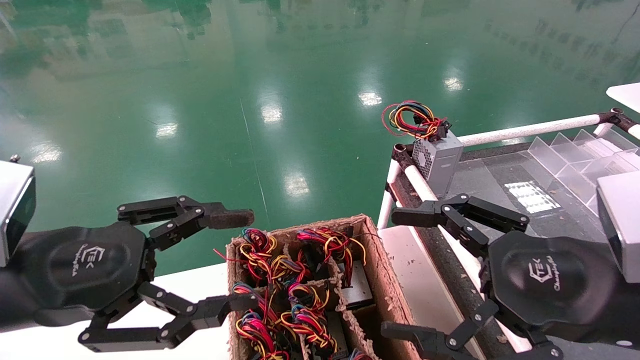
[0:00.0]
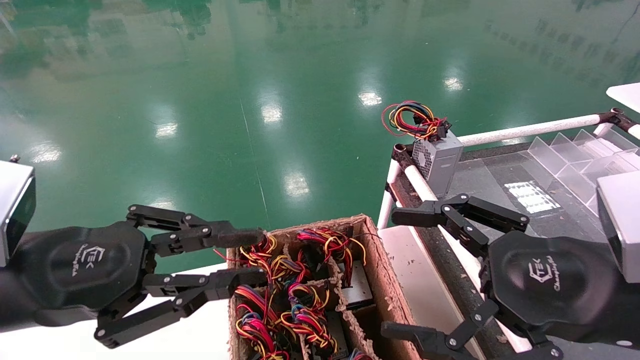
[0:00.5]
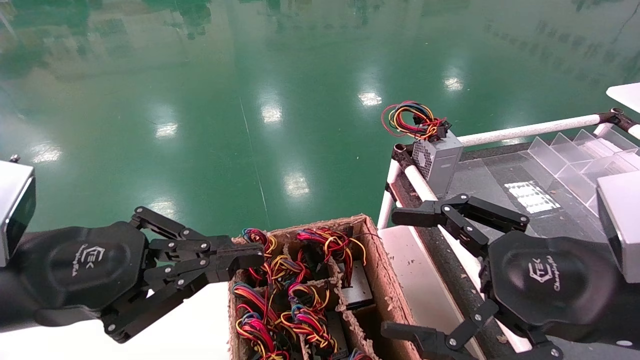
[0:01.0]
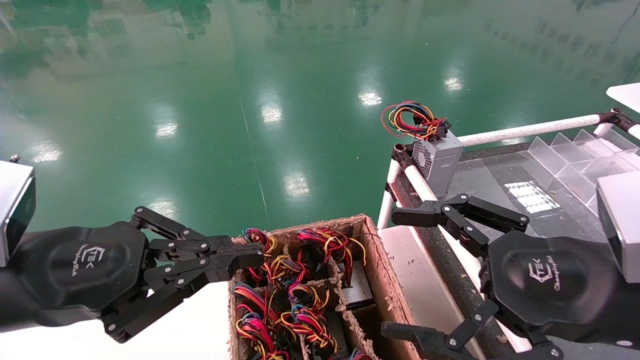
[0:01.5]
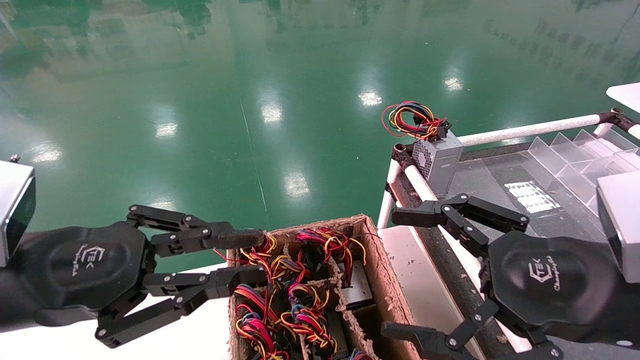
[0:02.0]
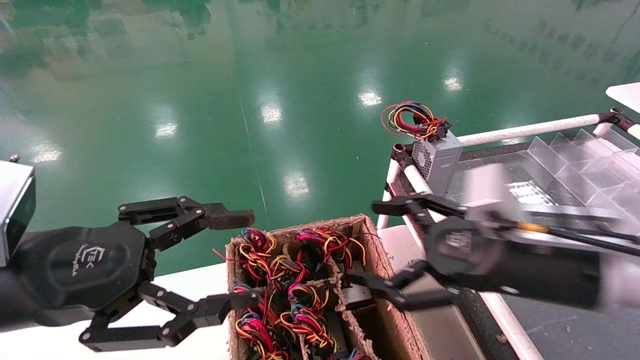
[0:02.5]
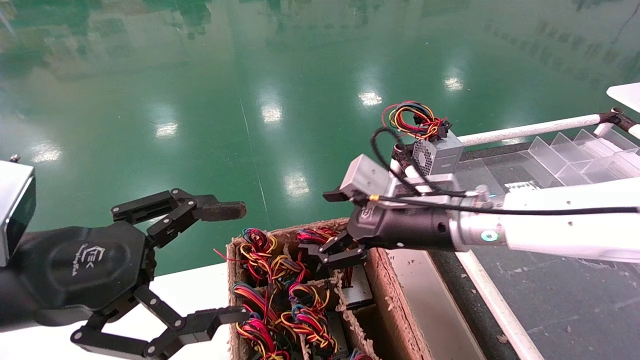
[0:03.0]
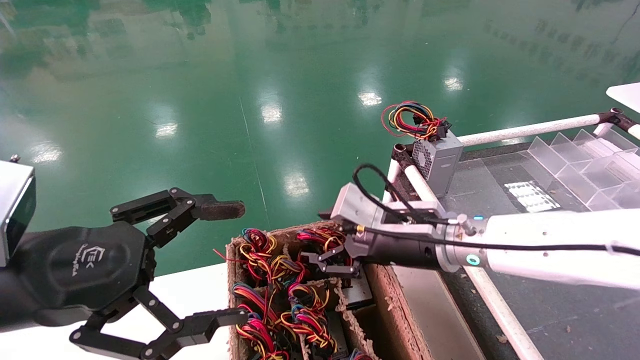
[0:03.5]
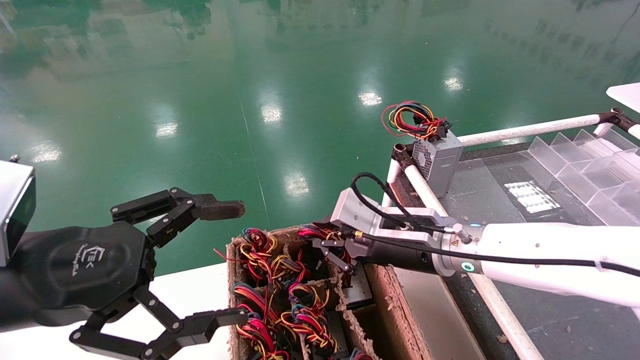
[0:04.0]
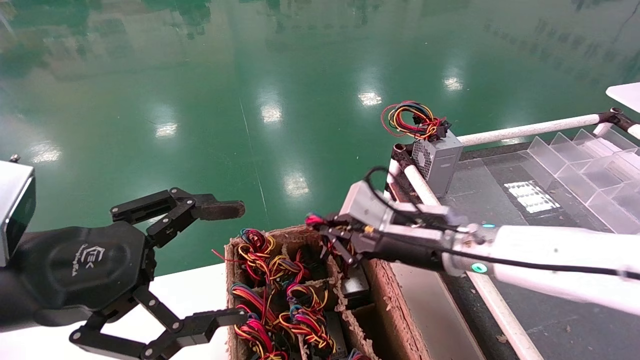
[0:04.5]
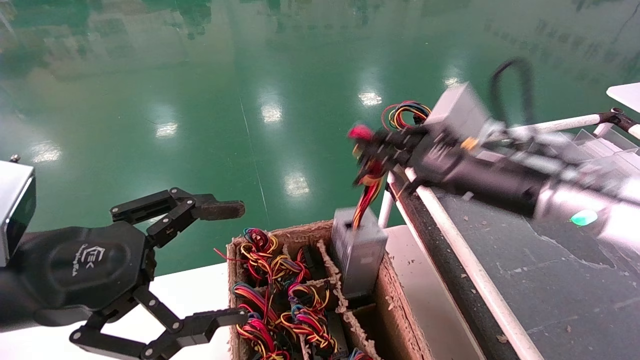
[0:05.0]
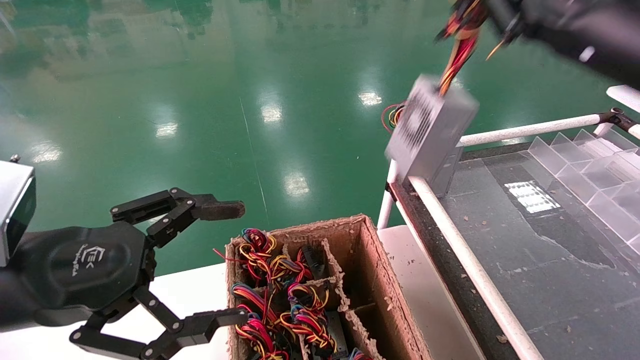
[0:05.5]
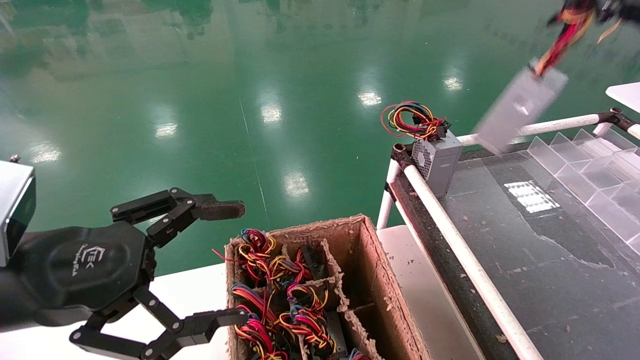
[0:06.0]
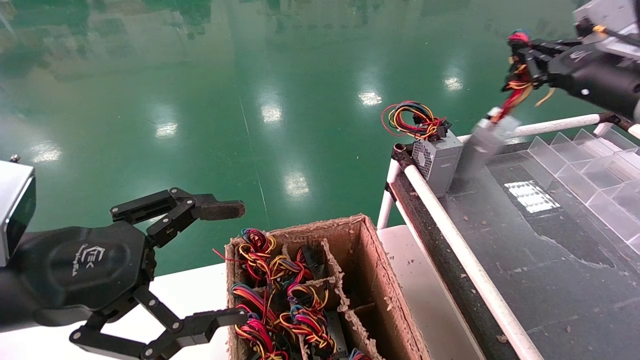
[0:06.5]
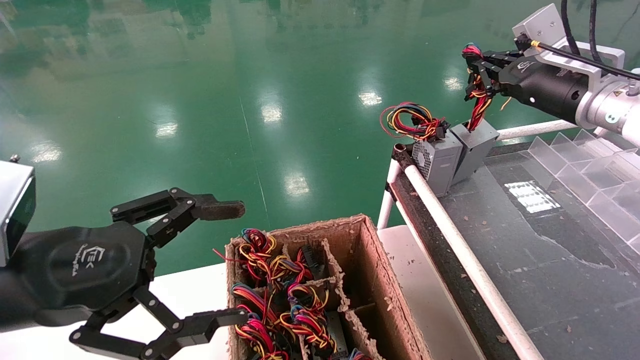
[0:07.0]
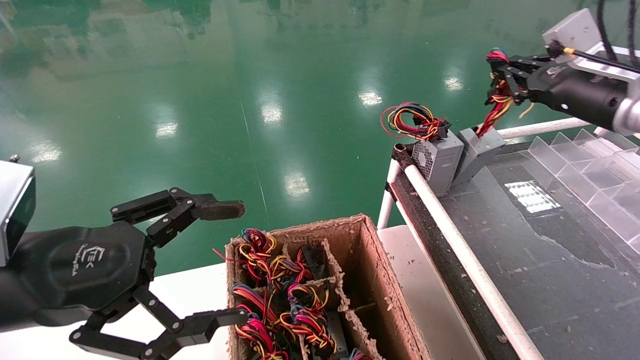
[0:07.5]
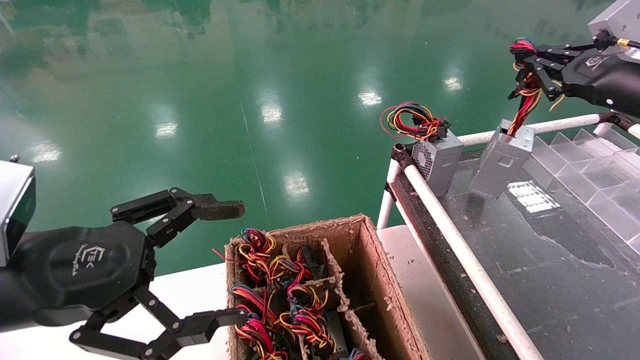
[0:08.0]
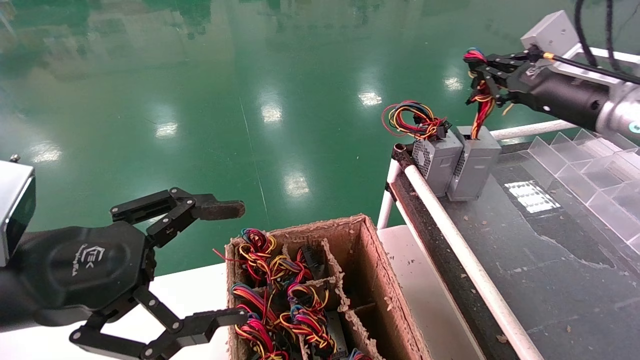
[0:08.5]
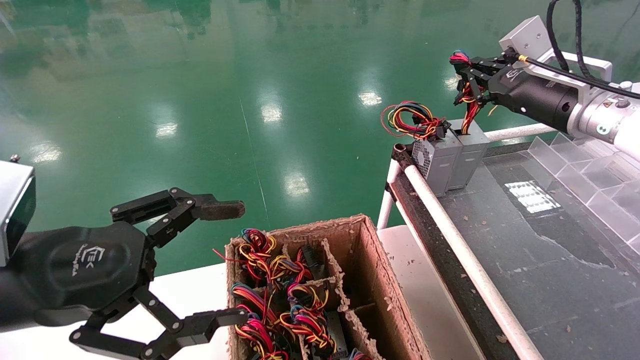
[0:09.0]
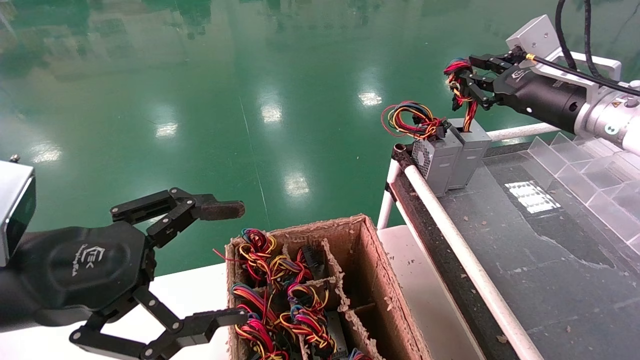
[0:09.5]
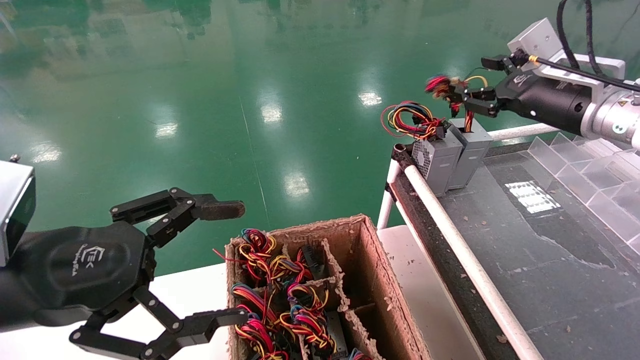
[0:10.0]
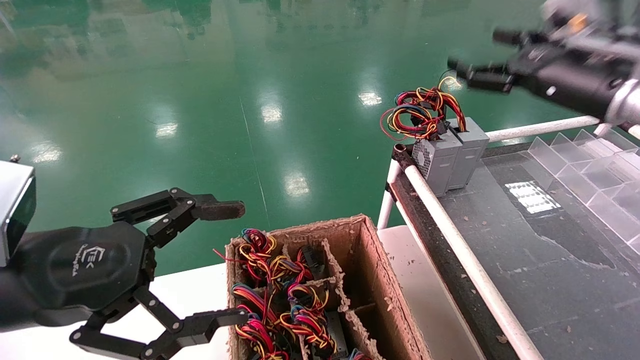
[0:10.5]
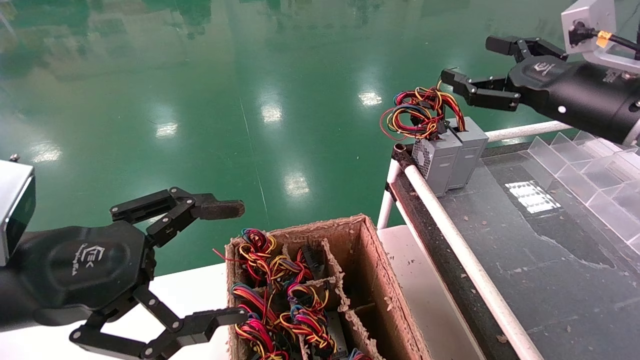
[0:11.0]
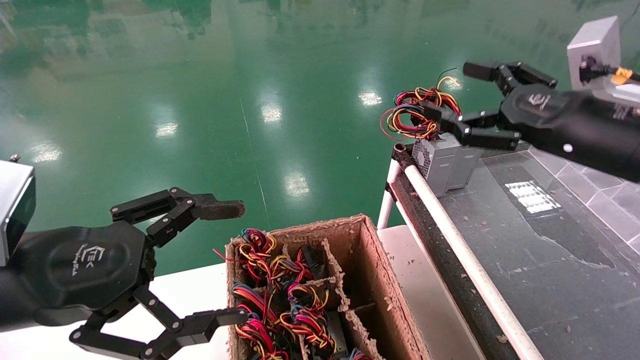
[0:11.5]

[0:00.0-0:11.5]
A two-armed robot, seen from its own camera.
Step, 0:01.5 to 0:04.5: Grab and lift the power supply from the large box.
Step, 0:05.0 to 0:09.0: Place the power supply on the operating table.
0:00.0 to 0:02.0: The left gripper closes its fingers.
0:02.0 to 0:04.0: The left gripper opens; the right gripper is displaced forward and to the left by approximately 20 cm, and closes up.
0:04.0 to 0:06.0: The right gripper heads to the right and upward, covering approximately 35 cm.
0:06.0 to 0:07.5: The right gripper is displaced forward and downward by some 10 cm.
0:07.5 to 0:09.5: The grippers stay close to where they were, moving slightly.
0:09.5 to 0:11.5: The right gripper moves backward, approximately 10 cm, and opens.

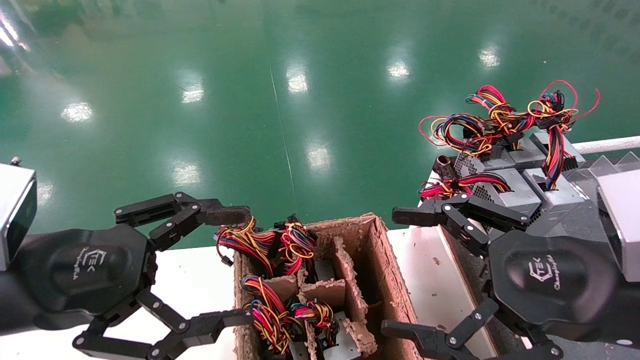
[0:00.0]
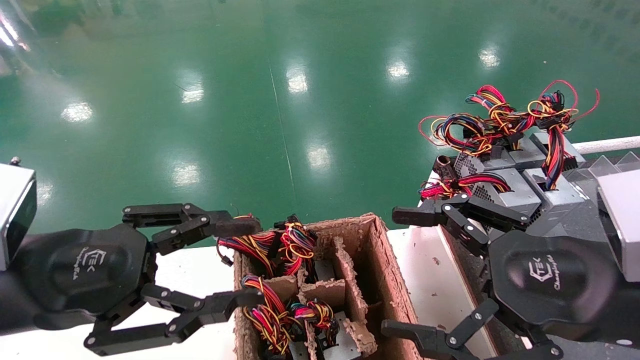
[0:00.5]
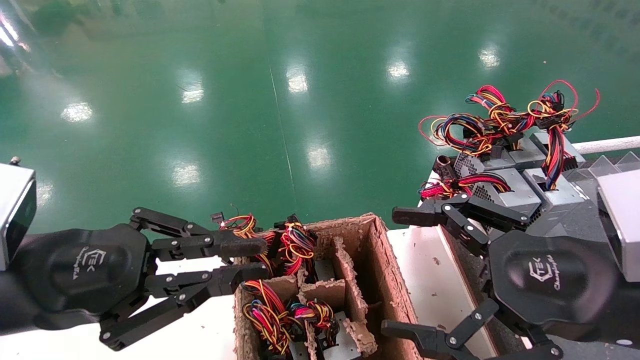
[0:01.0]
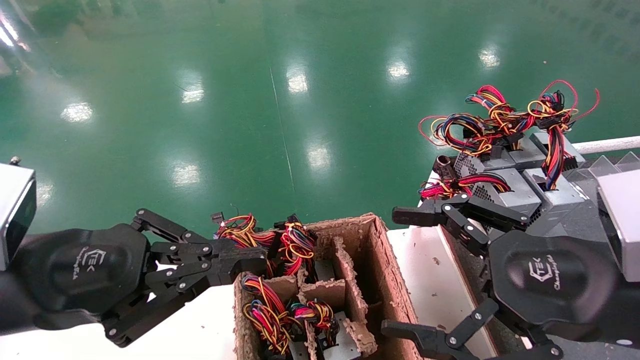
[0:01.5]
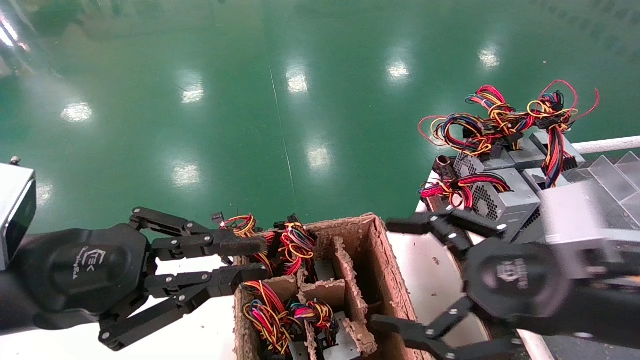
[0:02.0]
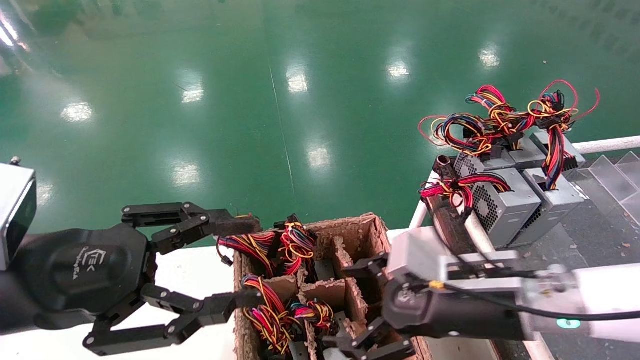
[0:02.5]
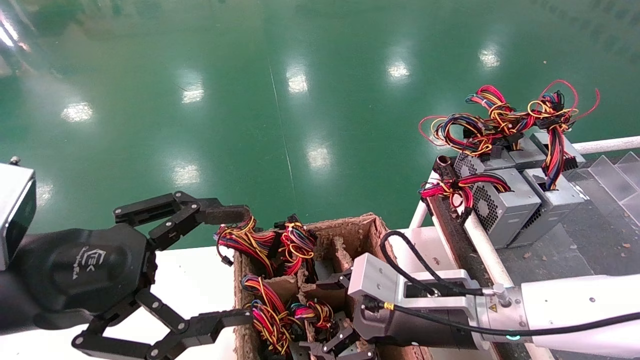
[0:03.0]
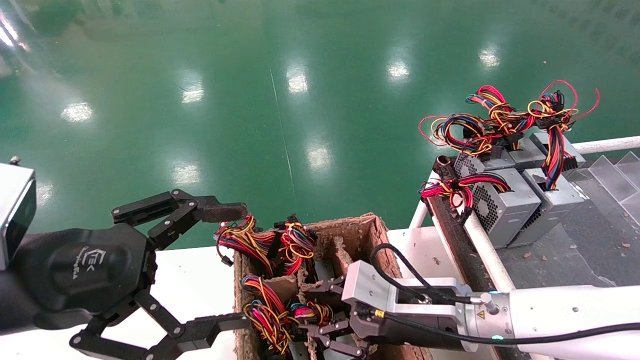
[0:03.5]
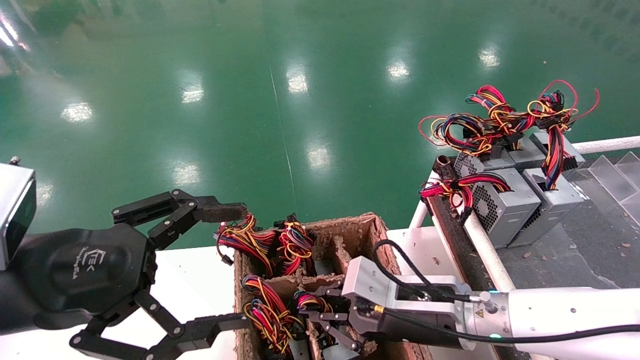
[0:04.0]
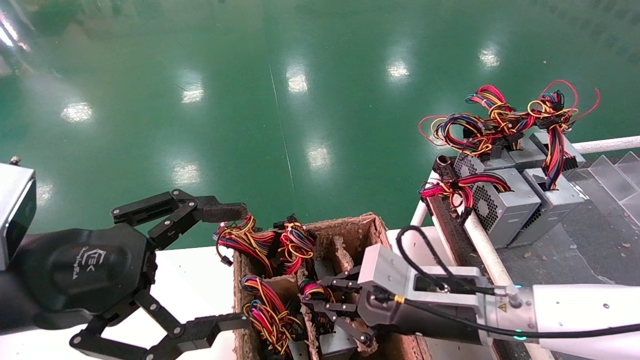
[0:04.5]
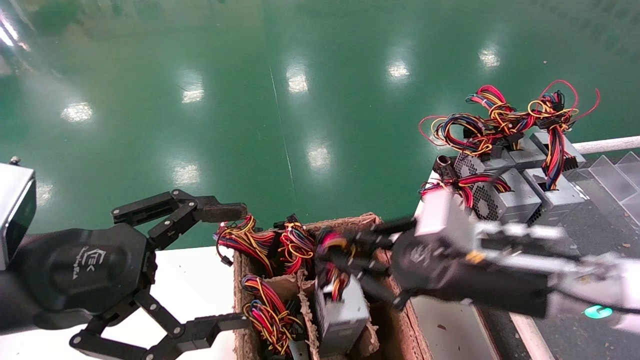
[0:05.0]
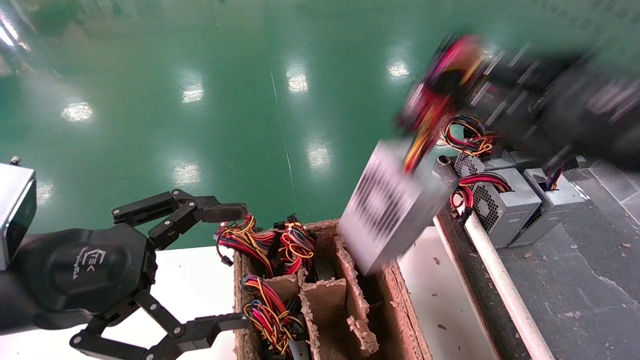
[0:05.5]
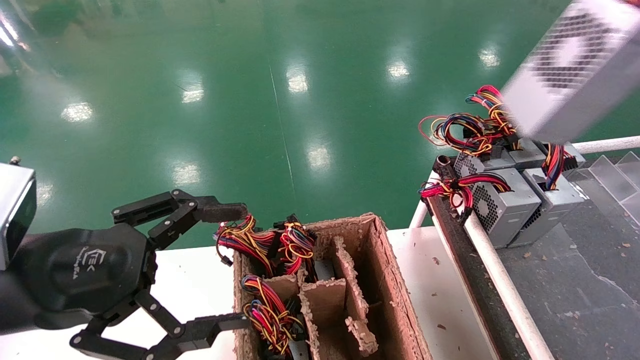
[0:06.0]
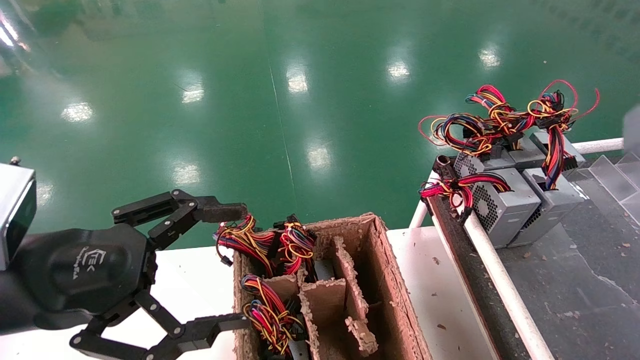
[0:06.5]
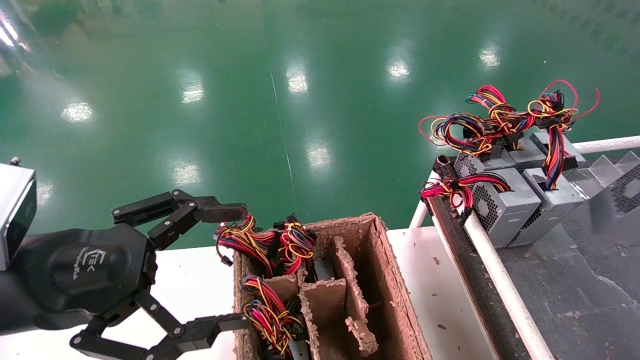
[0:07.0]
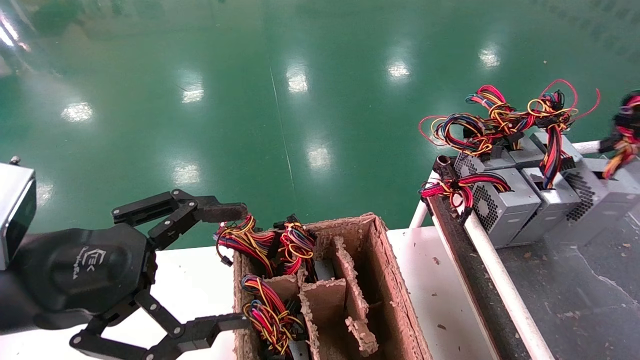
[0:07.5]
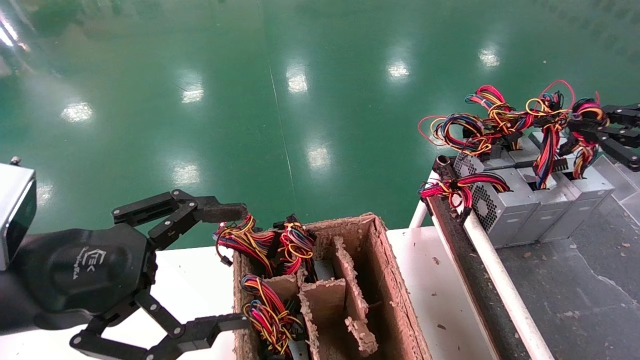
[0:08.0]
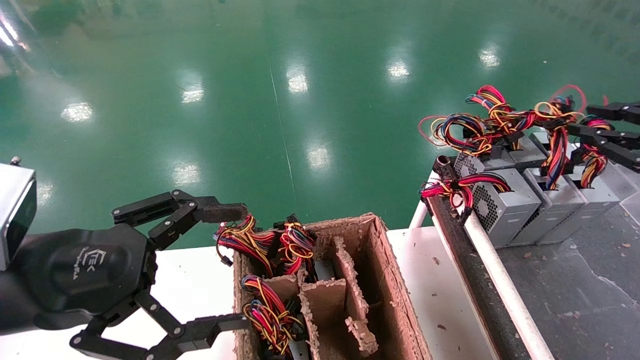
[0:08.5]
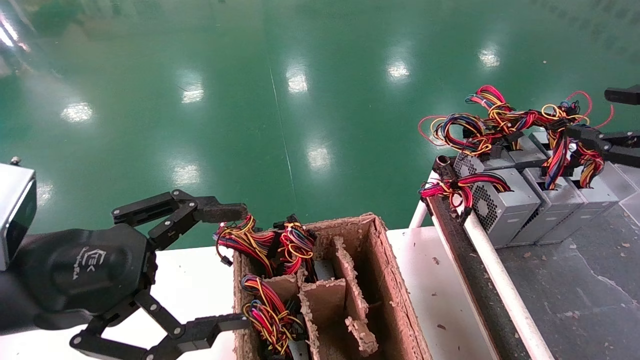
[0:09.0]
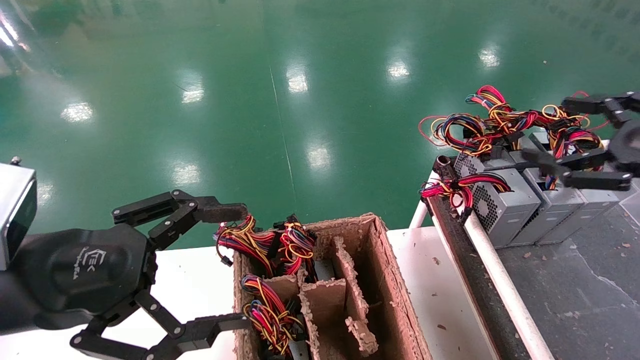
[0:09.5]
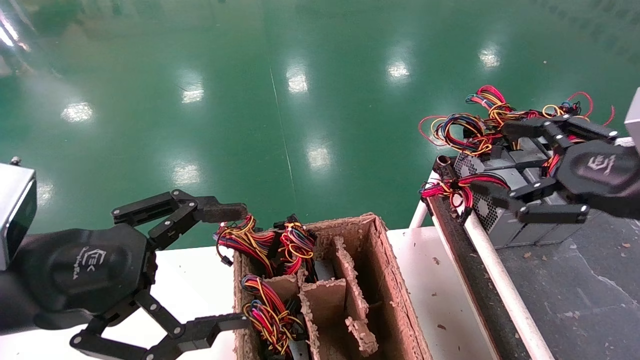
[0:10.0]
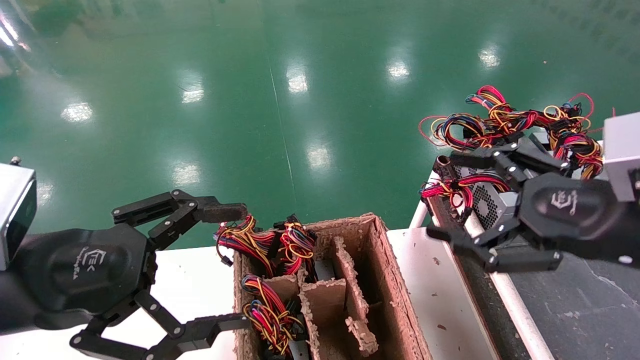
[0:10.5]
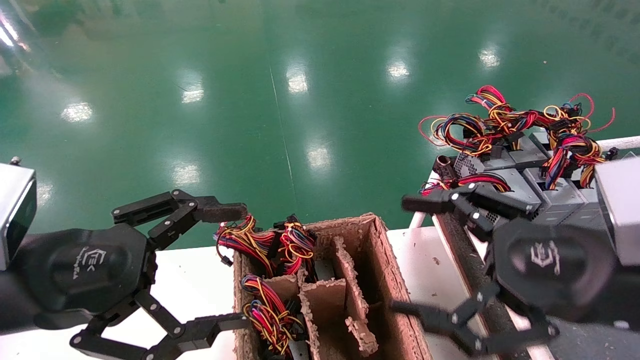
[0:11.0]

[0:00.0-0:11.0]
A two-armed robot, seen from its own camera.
Step, 0:02.0 to 0:04.0: Grab and lift the power supply from the large box.
Step, 0:04.5 to 0:08.5: Place the power supply on the operating table.
0:00.0 to 0:02.0: The left gripper closes up.
0:02.0 to 0:03.5: The right gripper goes some 15 cm to the left, downward and forward, and closes its fingers. The left gripper opens up.
0:03.5 to 0:05.5: The right gripper moves upward, to the right and backward, about 30 cm, and closes up.
0:05.5 to 0:07.5: The right gripper heads to the right, covering approximately 20 cm.
0:07.5 to 0:09.0: The right gripper opens its fingers.
0:09.0 to 0:11.0: The right gripper goes some 20 cm to the left, and opens.
